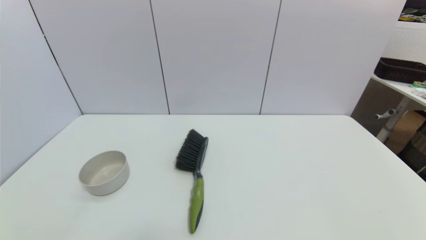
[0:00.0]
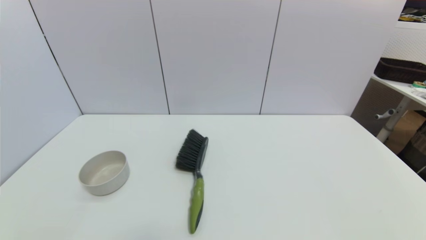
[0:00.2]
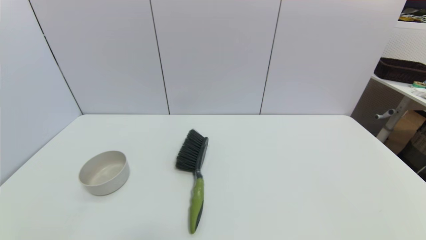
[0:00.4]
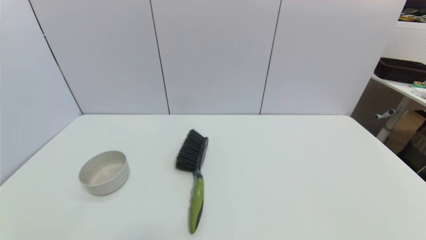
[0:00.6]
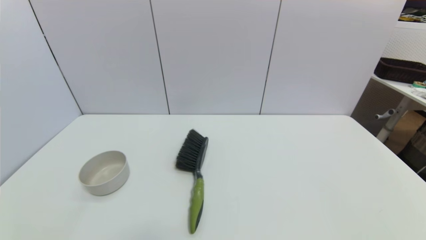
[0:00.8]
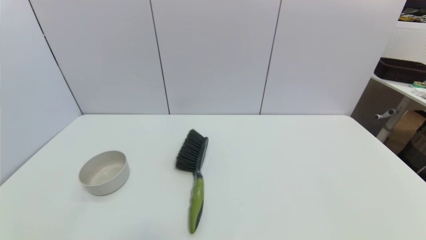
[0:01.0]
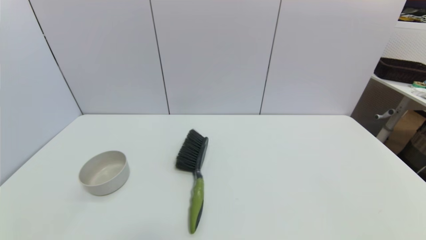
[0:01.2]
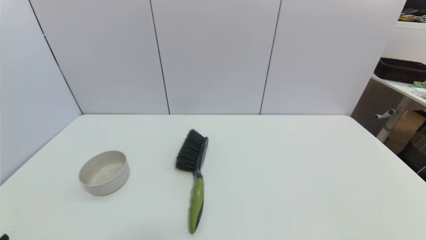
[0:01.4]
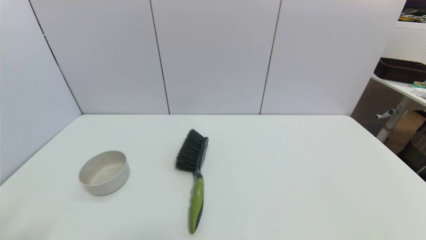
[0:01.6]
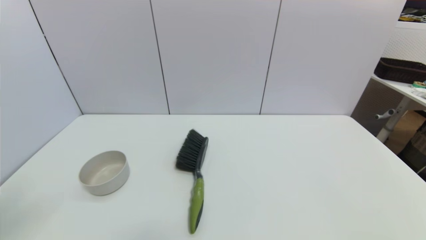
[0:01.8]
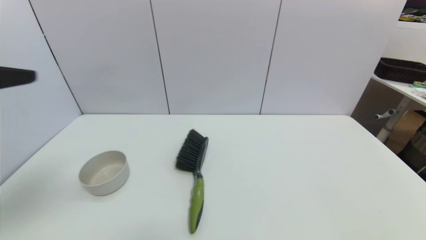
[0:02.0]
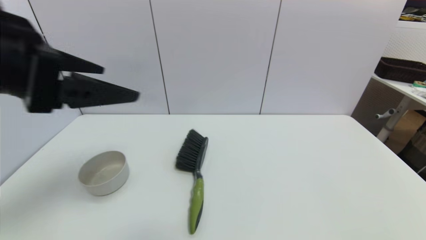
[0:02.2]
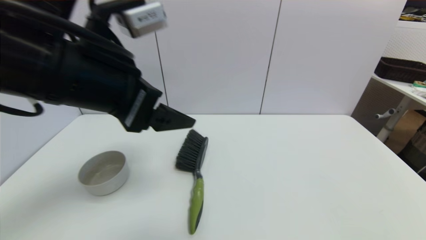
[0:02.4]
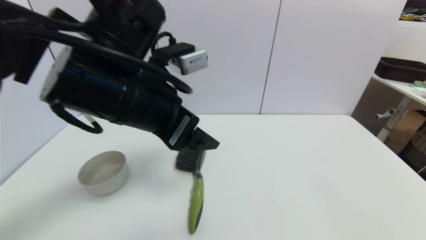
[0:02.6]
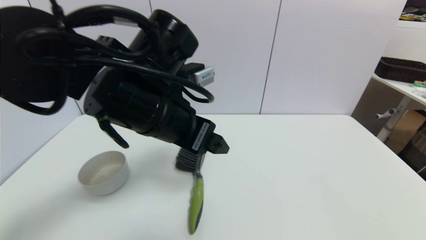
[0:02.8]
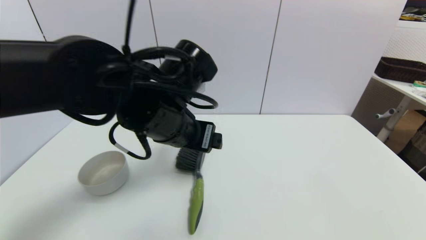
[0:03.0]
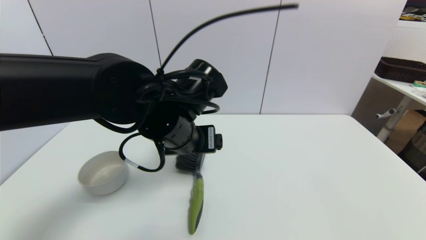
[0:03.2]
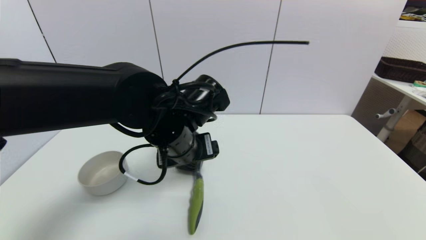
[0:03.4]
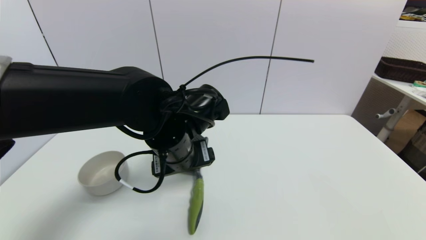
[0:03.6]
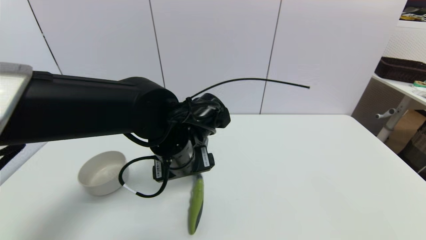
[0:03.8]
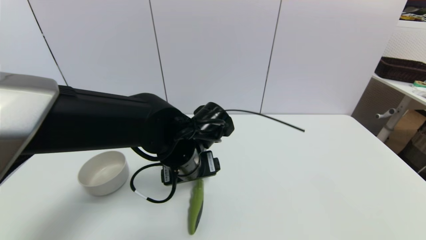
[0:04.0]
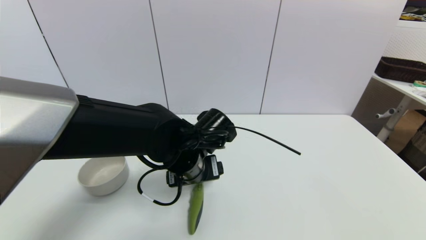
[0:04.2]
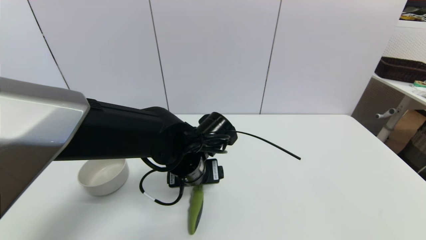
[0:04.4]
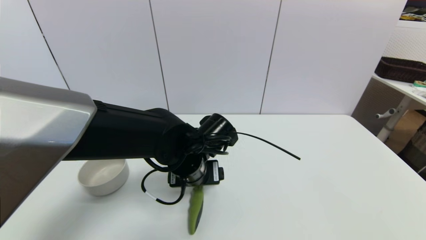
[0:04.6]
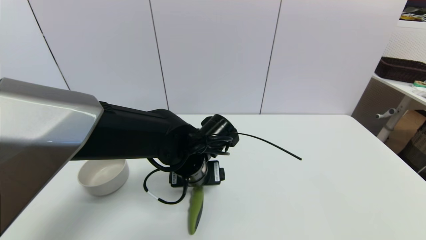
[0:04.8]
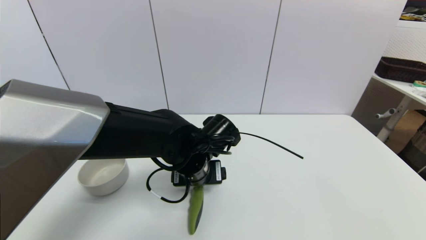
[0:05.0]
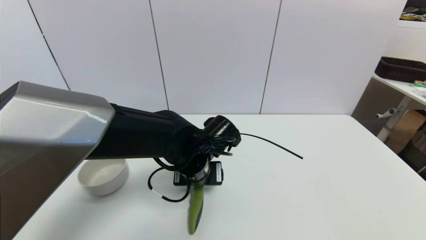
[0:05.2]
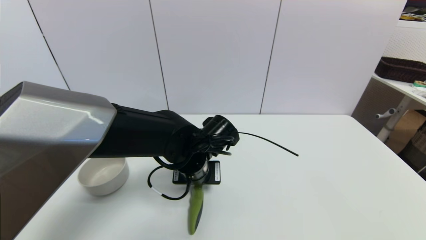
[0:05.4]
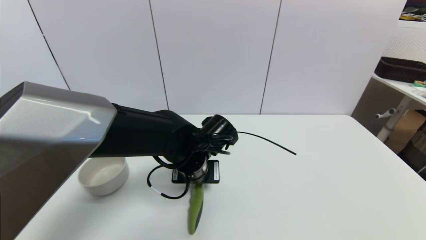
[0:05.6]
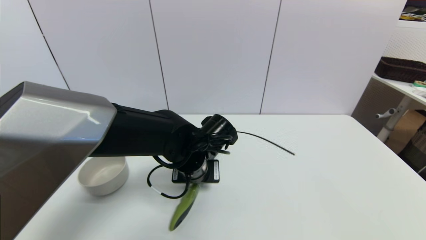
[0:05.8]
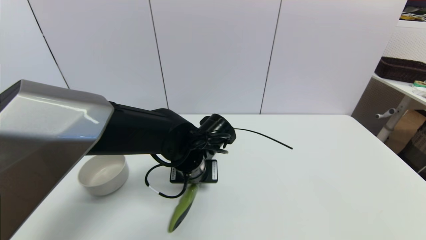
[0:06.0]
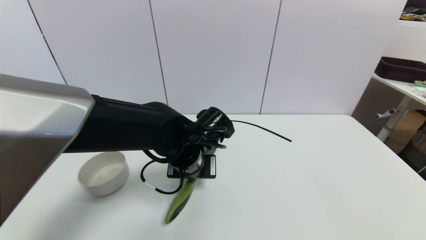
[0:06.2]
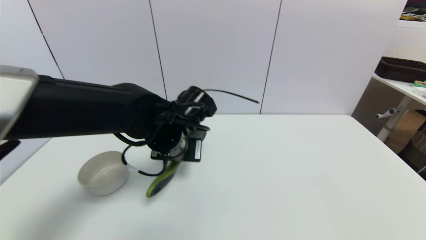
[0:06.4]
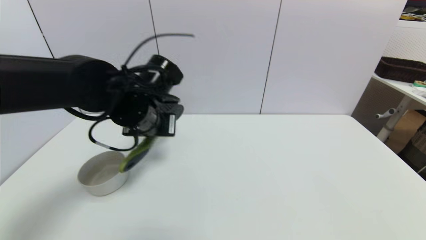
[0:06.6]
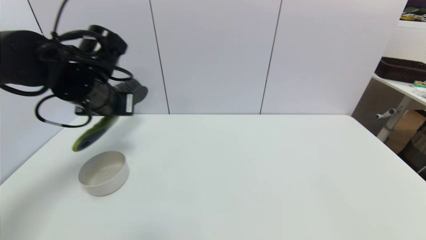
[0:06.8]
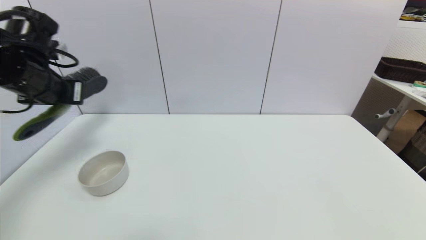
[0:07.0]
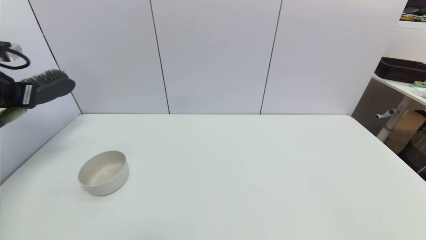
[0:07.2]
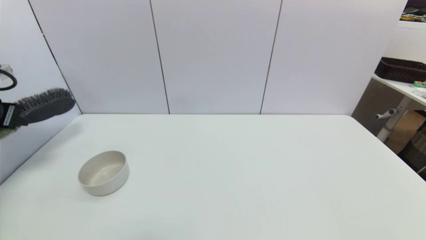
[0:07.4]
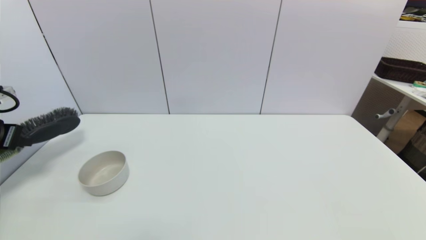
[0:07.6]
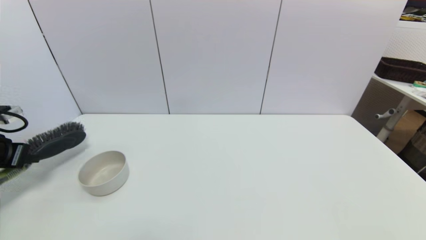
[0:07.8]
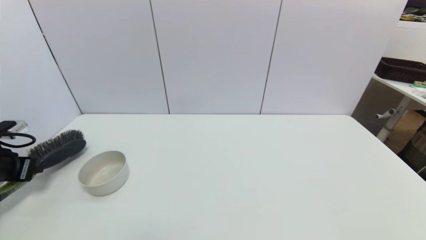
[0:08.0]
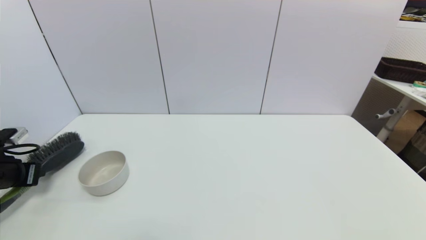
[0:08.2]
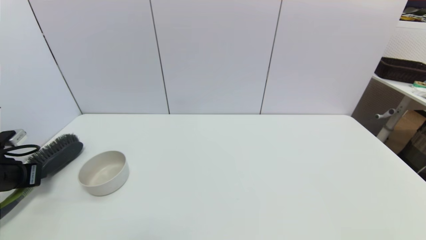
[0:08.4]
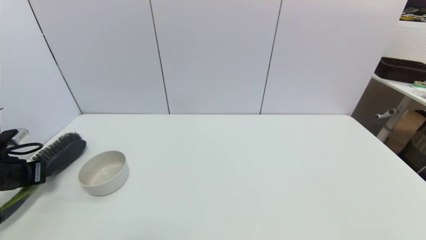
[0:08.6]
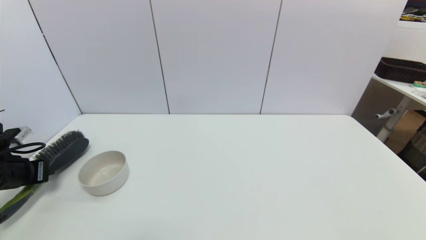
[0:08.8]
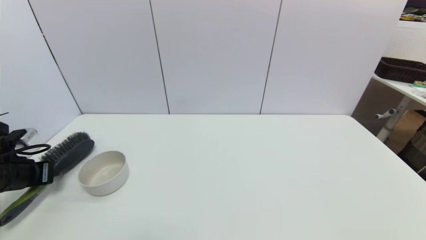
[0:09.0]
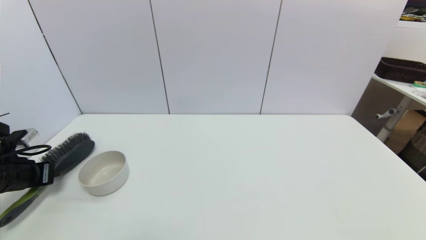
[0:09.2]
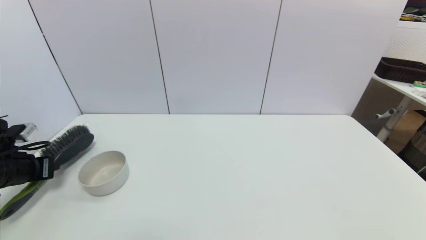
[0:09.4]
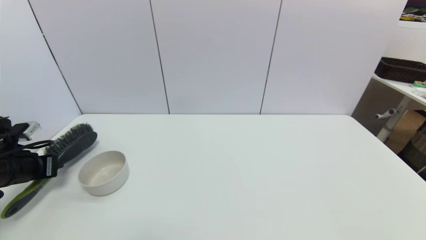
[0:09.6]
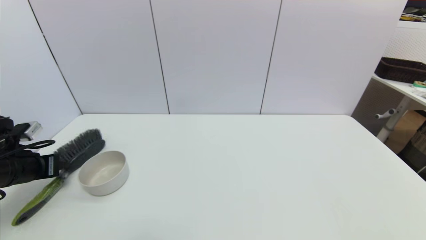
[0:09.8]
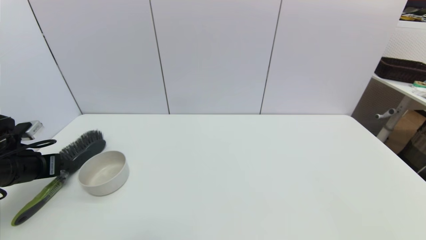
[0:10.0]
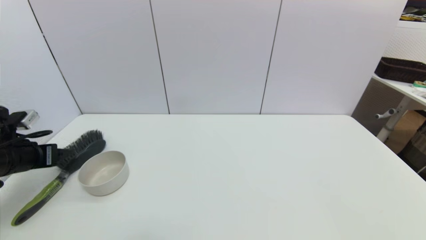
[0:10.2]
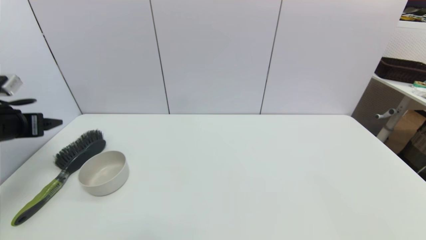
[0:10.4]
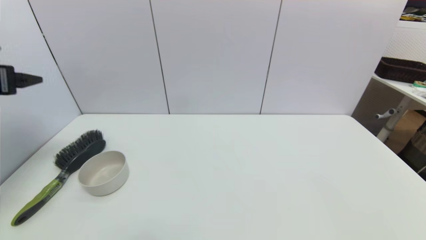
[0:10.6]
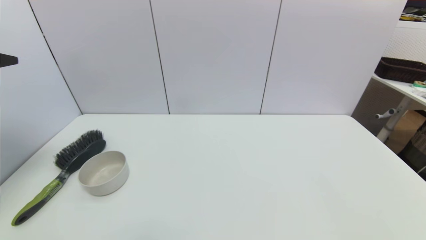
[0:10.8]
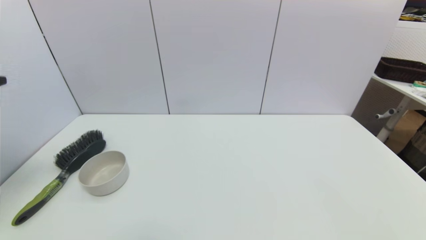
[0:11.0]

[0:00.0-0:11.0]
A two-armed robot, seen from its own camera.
Task of the whole recording: put the brush in the designated position.
Step, 0:02.0 to 0:06.4: Grasp the brush with left gripper.
Step, 0:06.6 to 0:10.0: Place the brush on the table with left gripper.
0:01.6 to 0:03.2: The left gripper is displaced to the right and forward by about 35 cm.
0:03.2 to 0:04.8: The left gripper travels downward by about 10 cm.
0:04.8 to 0:06.2: The left gripper closes its fingers.
0:06.2 to 0:07.8: The left gripper heads to the left, covering some 40 cm.
0:07.8 to 0:09.4: The left gripper shifts some 5 cm downward.
0:09.4 to 0:11.0: The left gripper shifts roughly 25 cm upward and backward, and opens its fingers.

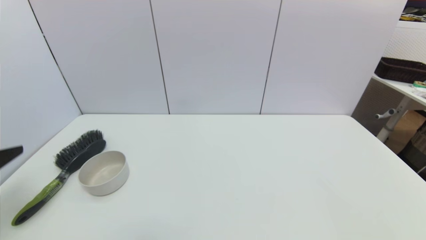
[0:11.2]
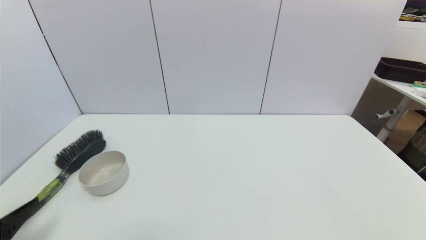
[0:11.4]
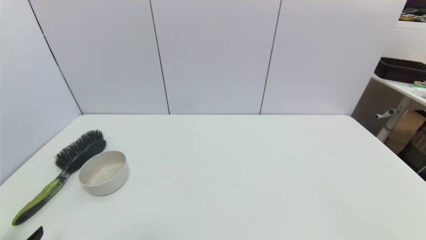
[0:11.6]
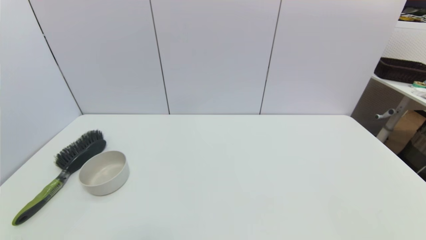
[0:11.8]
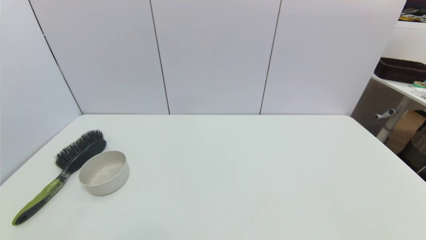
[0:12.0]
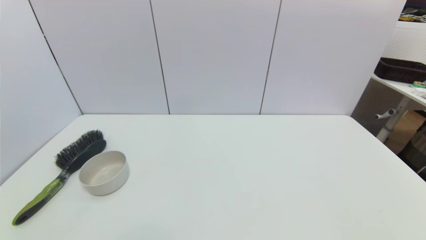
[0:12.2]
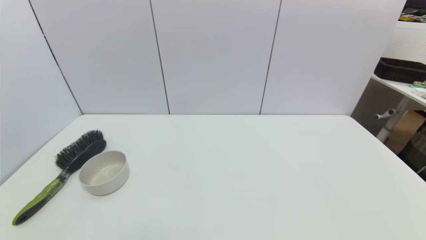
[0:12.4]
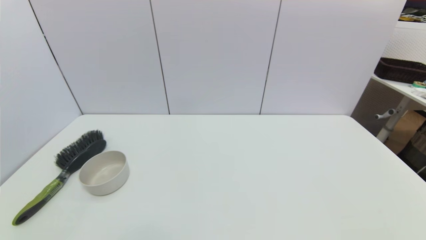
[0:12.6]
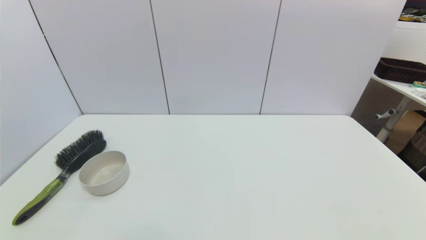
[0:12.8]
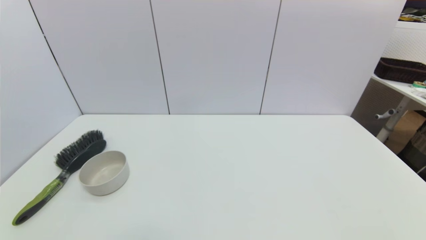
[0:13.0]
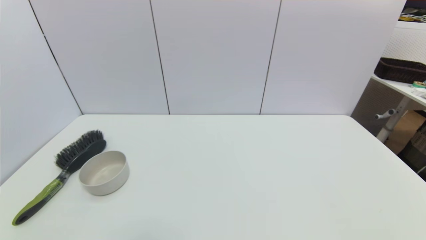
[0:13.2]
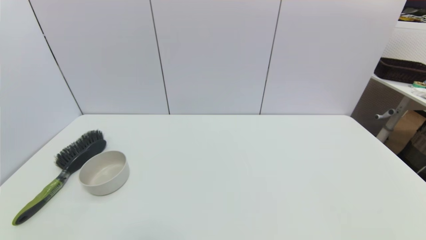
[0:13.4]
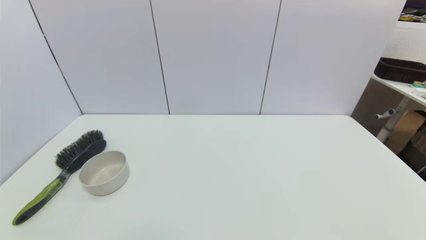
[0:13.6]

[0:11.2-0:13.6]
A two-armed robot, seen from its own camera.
Task of the whole recording: put the brush in the designated position.
0:11.2 to 0:12.4: The left gripper is displaced downward and backward by about 20 cm.
0:12.4 to 0:13.6: Neither gripper changes place.
